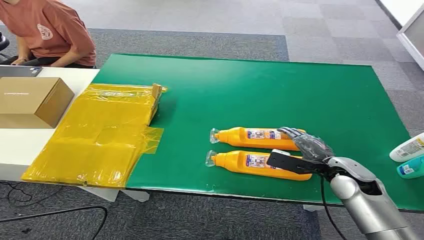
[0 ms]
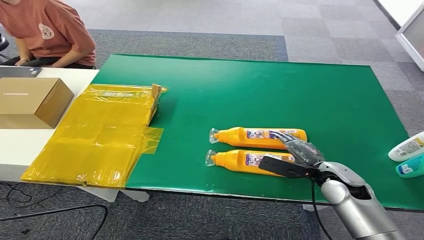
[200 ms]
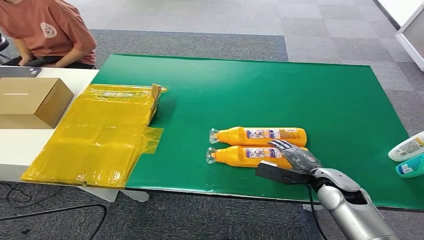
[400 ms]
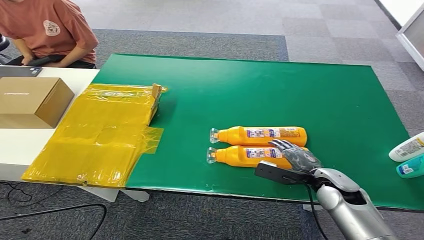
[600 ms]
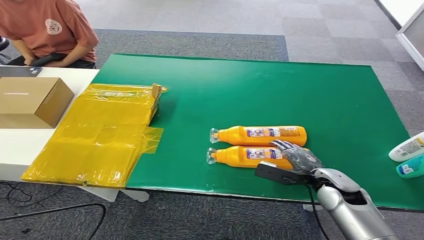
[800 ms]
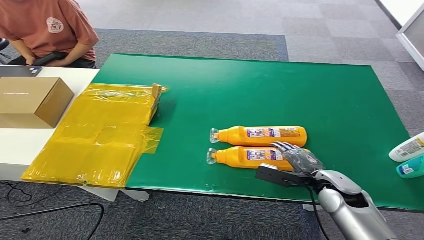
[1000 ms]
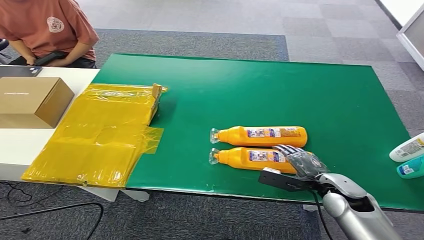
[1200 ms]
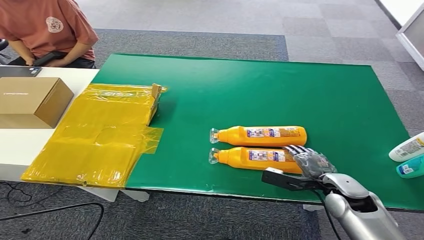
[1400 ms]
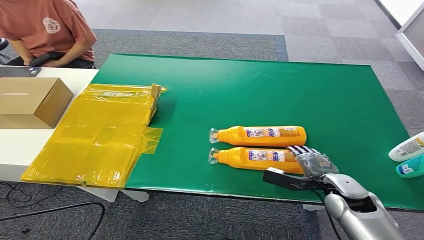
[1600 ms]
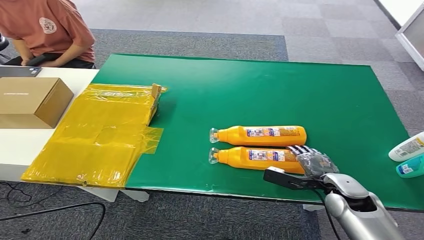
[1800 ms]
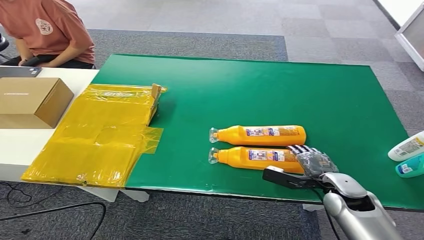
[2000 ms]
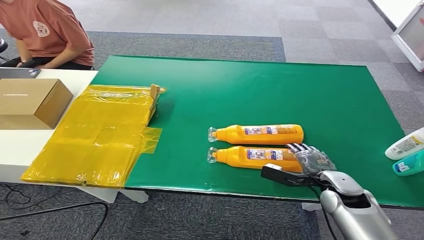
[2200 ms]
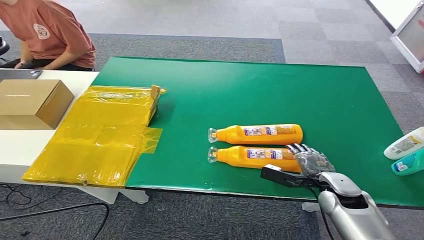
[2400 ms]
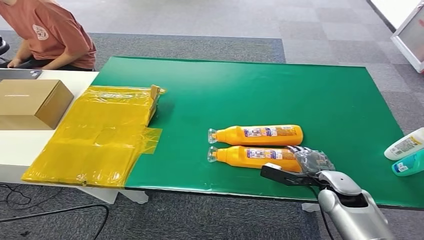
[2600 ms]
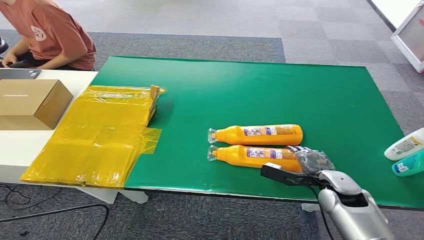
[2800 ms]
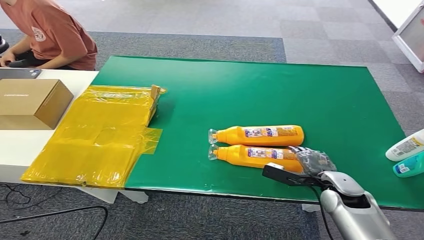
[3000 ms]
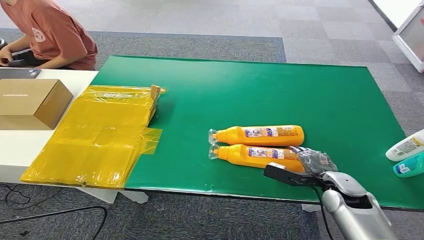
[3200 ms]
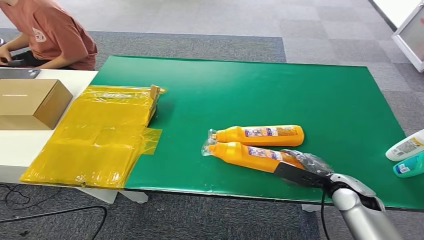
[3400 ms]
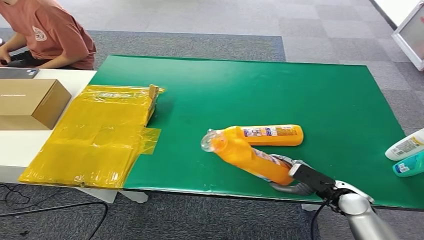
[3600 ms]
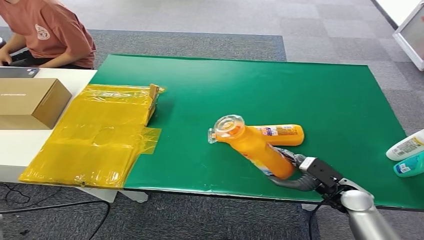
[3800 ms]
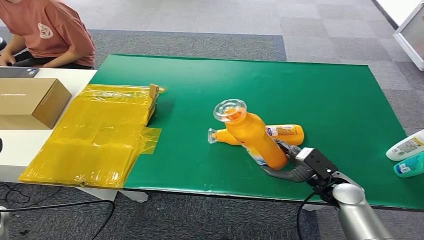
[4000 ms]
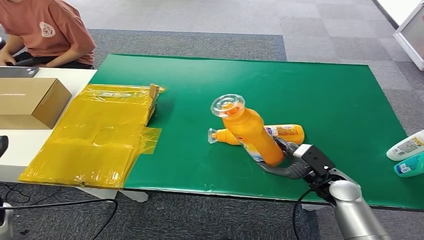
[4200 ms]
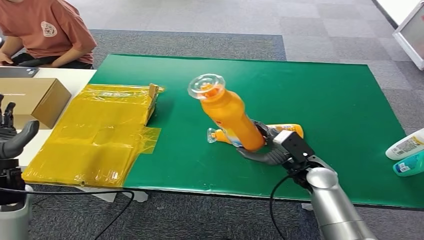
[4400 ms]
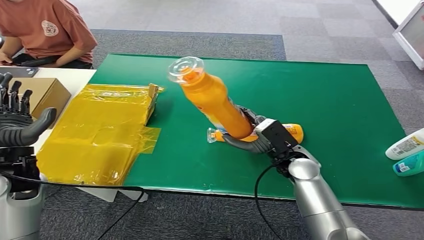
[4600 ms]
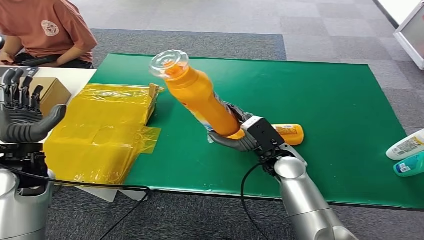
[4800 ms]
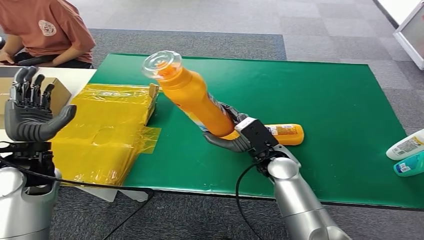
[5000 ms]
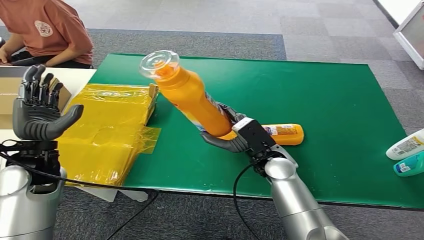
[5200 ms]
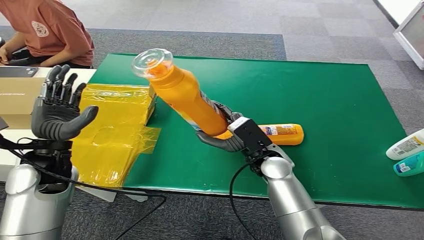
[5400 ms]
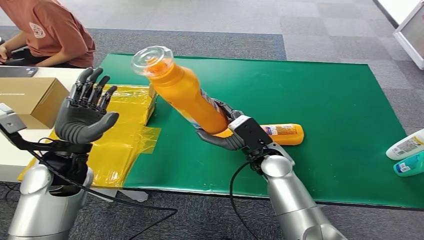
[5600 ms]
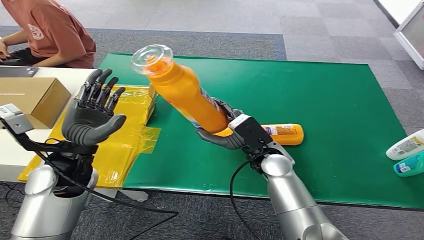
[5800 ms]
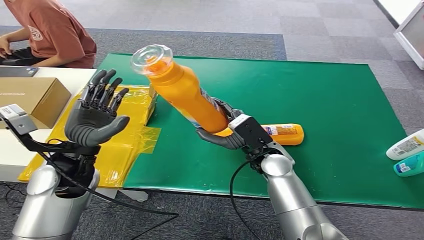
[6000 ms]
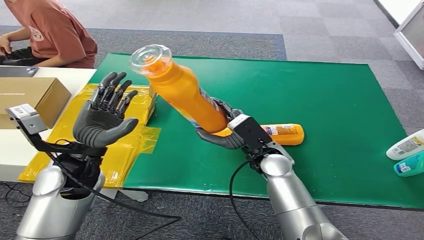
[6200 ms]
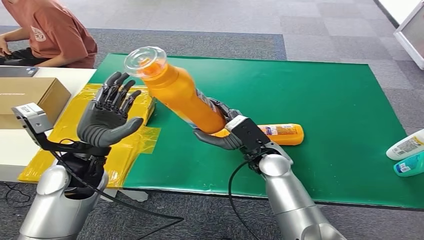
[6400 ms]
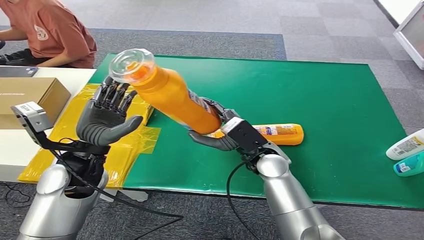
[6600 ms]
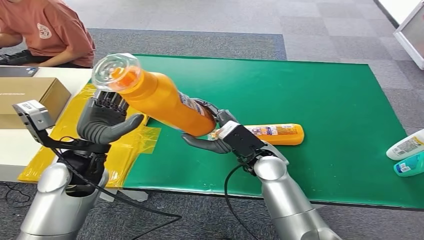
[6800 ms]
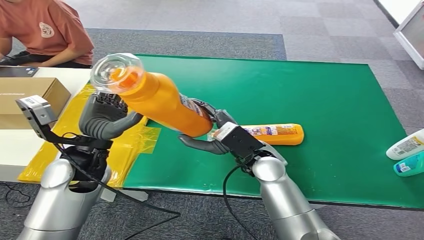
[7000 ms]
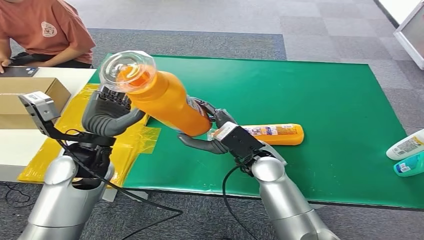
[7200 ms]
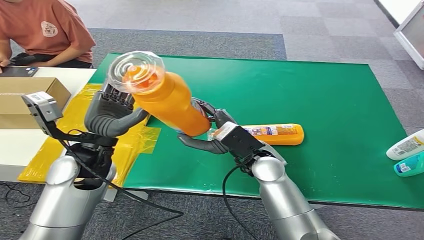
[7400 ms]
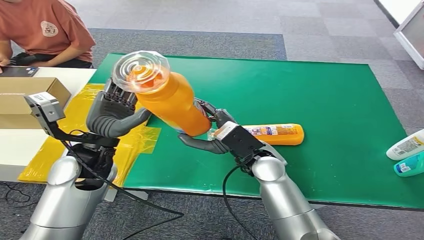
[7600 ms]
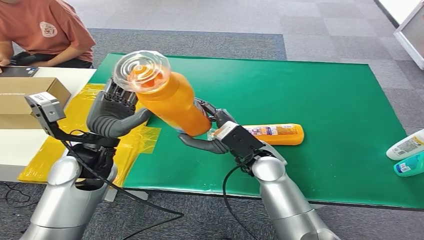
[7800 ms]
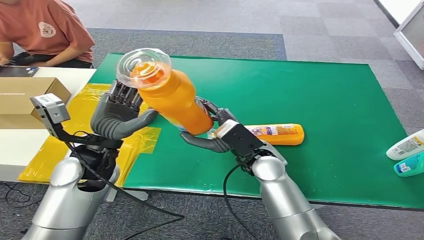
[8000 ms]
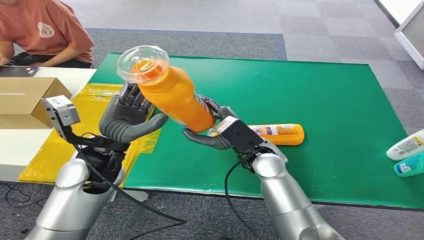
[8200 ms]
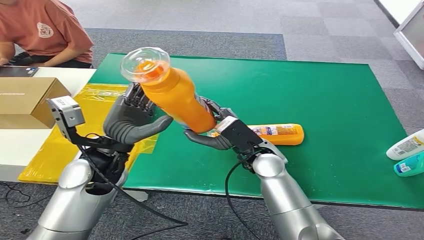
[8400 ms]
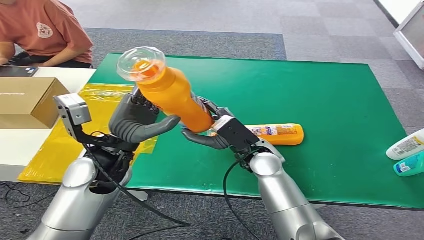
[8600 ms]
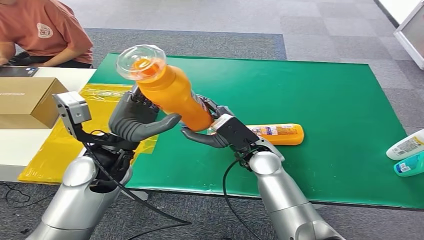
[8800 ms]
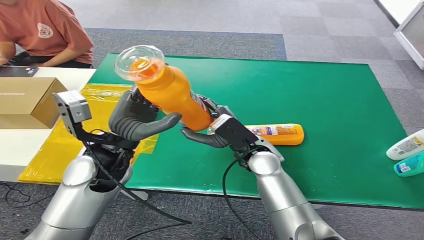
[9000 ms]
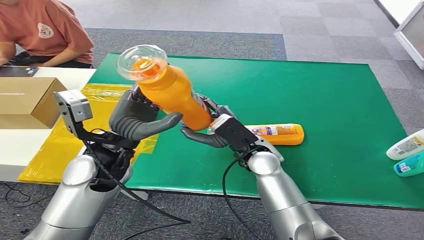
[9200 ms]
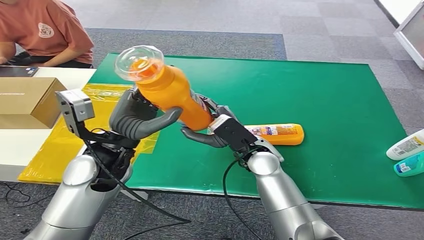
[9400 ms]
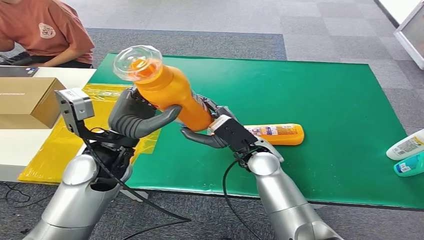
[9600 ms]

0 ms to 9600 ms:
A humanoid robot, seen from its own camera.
Step, 0 ms to 4000 ms: Pick up the bottle from the table.
1600 ms to 3200 ms: The hands move only a little.
8000 ms to 9600 ms: There are only small adjustments of the hands.

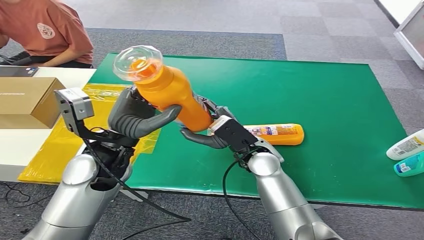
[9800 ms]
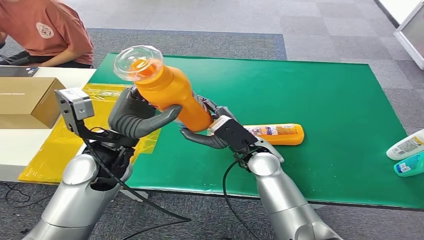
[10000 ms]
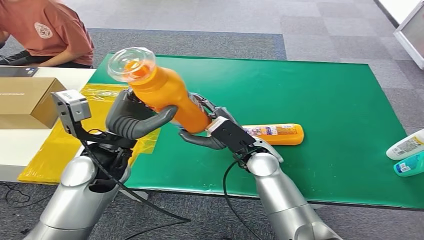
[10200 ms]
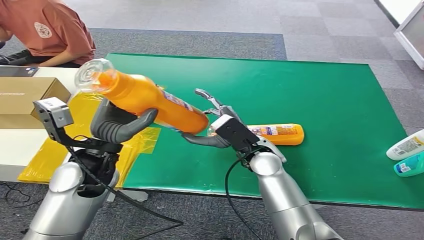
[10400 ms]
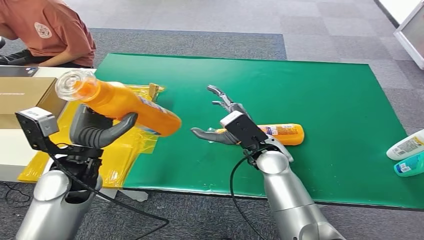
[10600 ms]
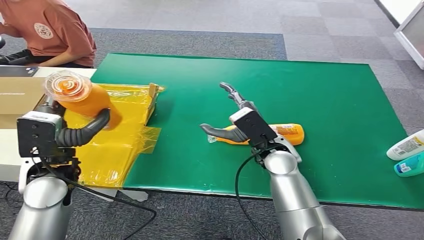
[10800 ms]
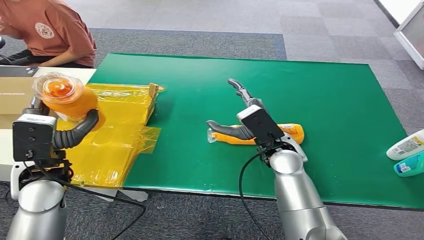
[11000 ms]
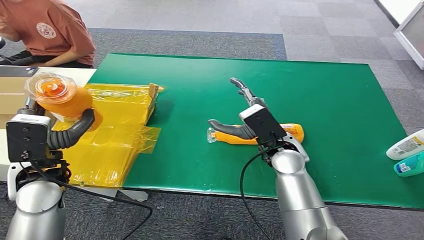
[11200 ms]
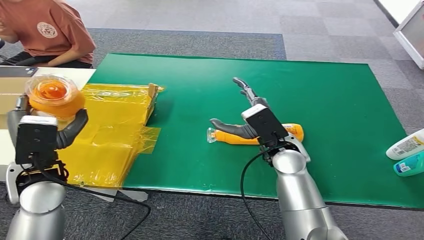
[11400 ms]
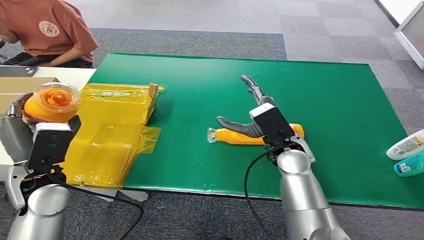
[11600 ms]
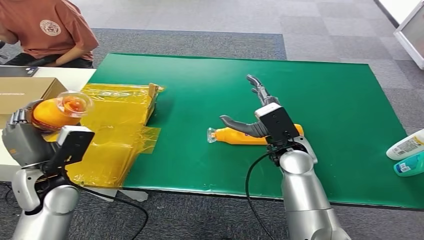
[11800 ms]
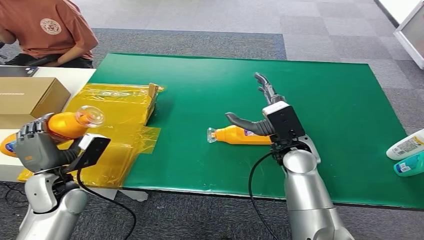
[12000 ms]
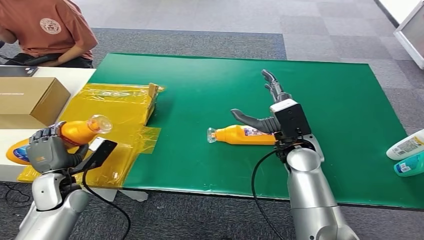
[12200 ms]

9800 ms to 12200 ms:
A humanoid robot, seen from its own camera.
Step, 9800 ms to 12200 ms: Turn the bottle to the front side.

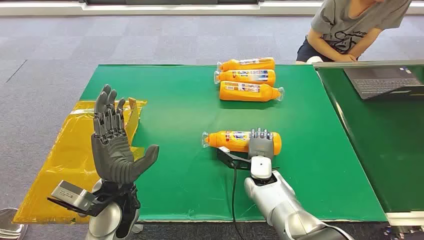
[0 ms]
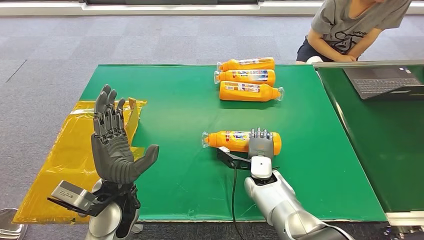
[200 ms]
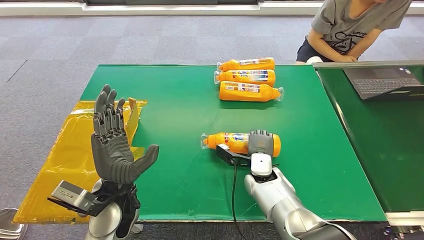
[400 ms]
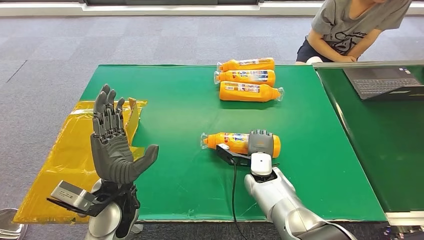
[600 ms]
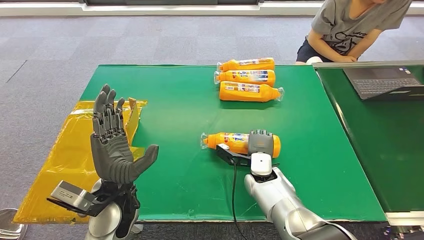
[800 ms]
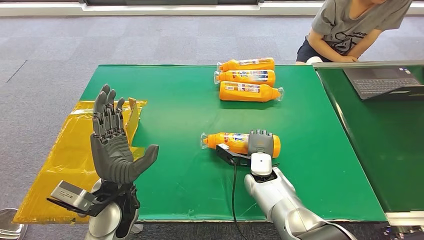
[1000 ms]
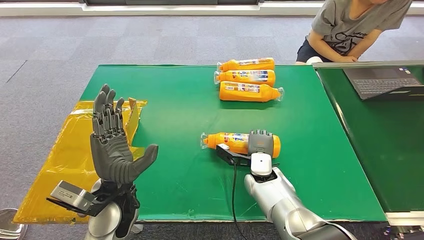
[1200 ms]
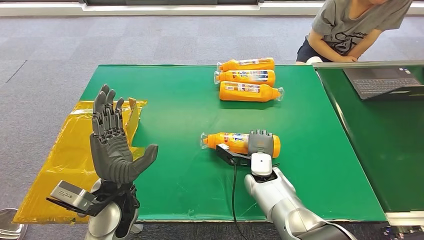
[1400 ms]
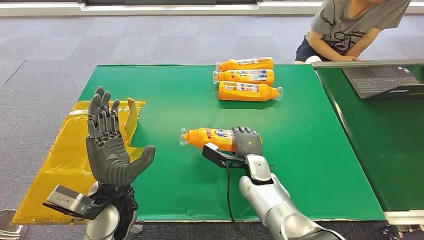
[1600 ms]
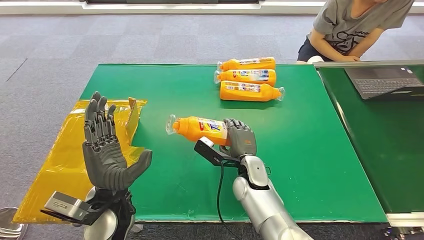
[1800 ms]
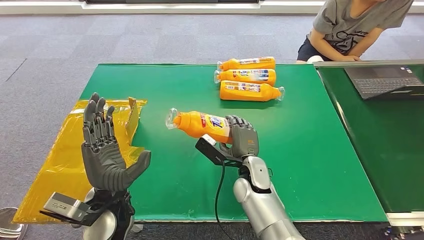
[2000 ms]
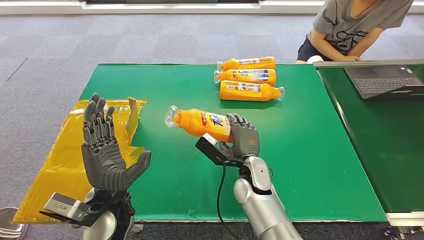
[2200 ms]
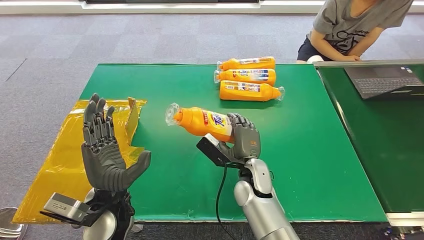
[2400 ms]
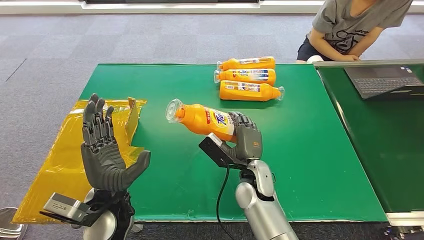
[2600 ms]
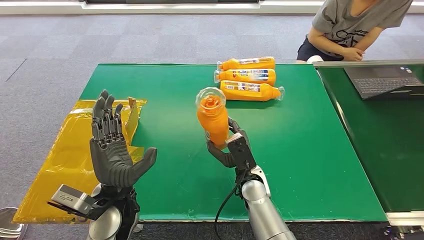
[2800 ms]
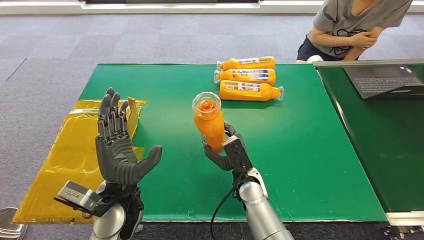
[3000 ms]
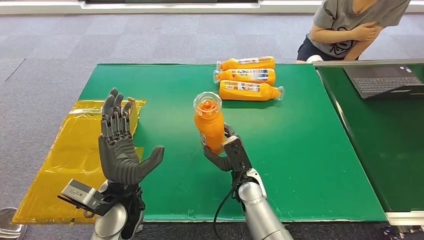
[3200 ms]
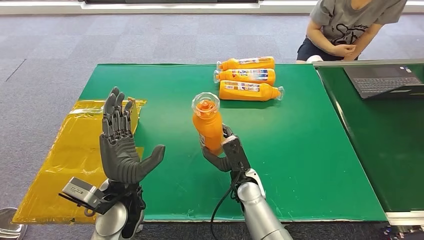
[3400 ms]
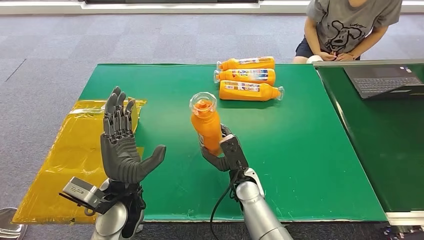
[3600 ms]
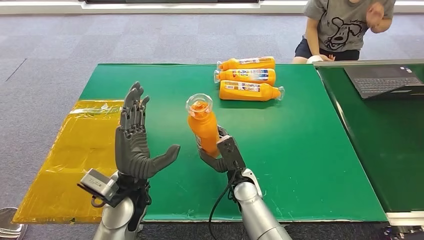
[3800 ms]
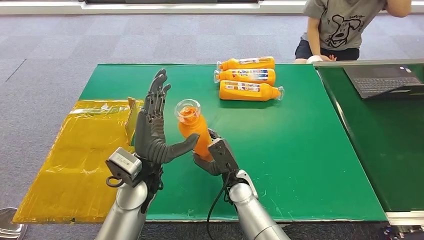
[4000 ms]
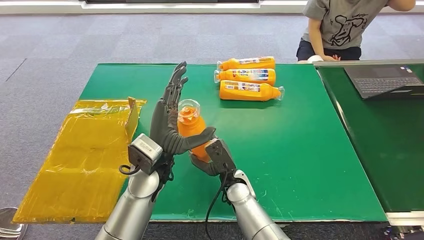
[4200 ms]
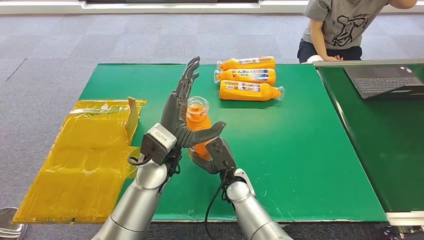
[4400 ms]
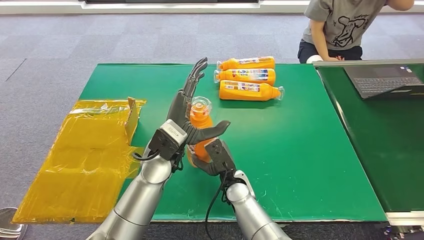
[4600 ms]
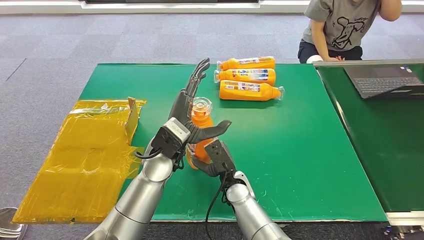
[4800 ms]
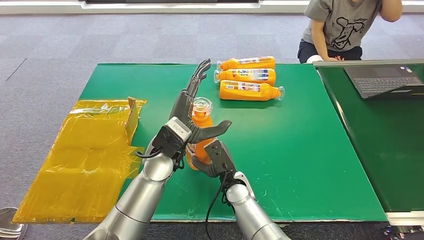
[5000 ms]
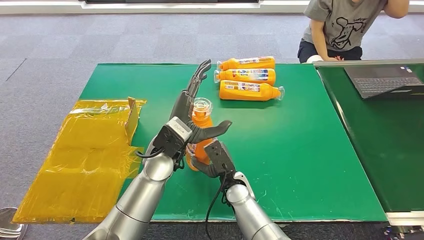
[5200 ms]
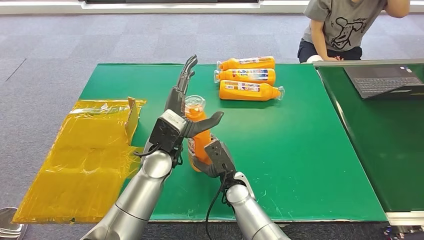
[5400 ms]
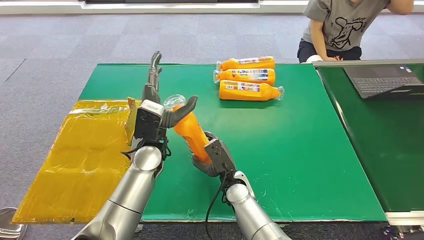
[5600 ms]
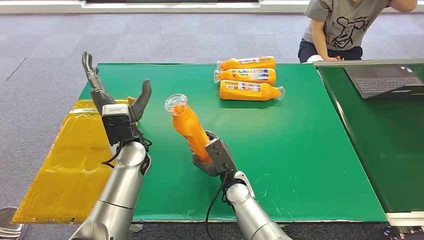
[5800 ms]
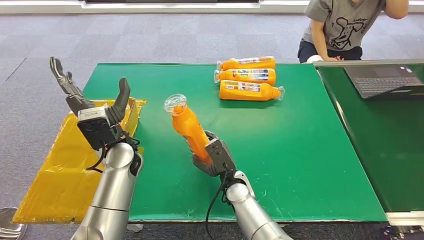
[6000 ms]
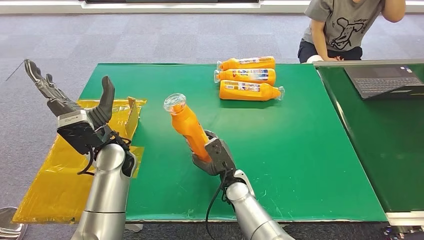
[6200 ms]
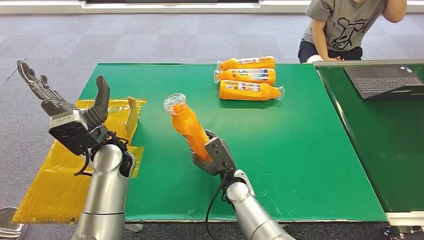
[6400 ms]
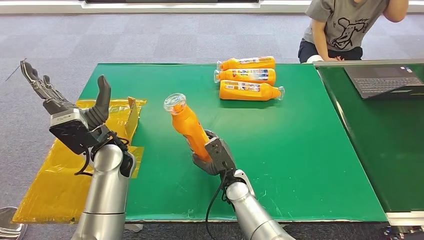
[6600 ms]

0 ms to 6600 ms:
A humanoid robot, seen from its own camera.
Step, 0 ms to 2800 ms: Pick up the bottle from the table.
1600 ms to 3200 ms: The right hand shifts by about 5 cm.
3200 ms to 5000 ms: The left hand travels forward and to the right by approximately 10 cm.
5000 ms to 6600 ms: The left hand goes roughly 10 cm to the left.
